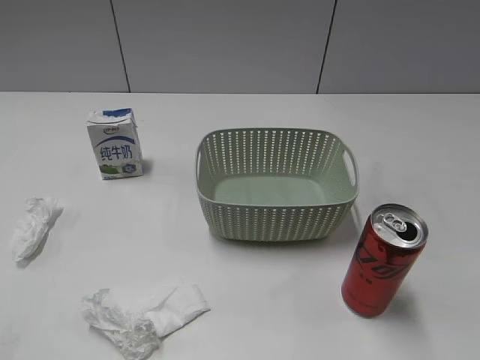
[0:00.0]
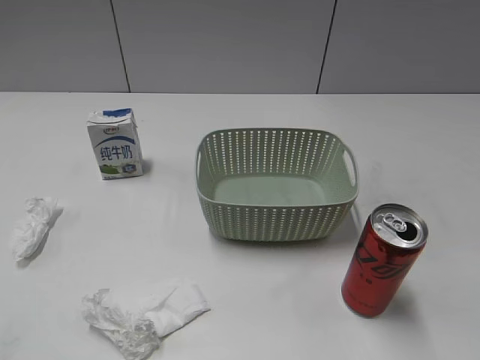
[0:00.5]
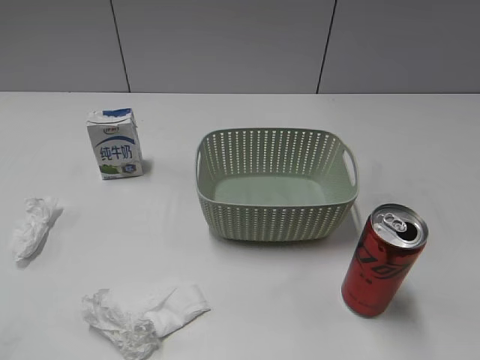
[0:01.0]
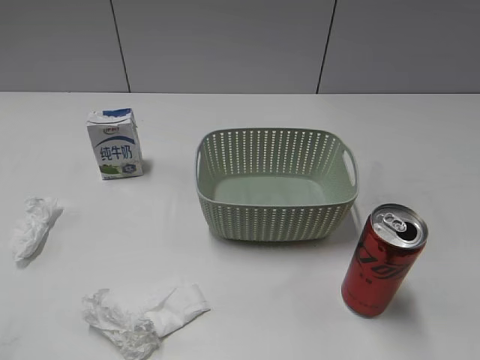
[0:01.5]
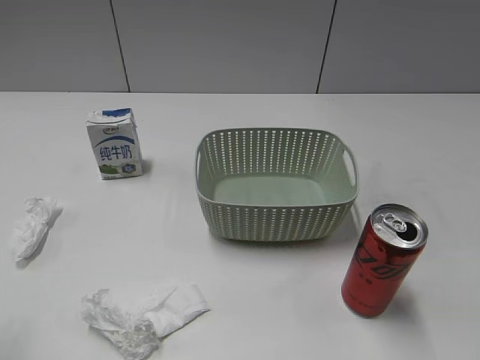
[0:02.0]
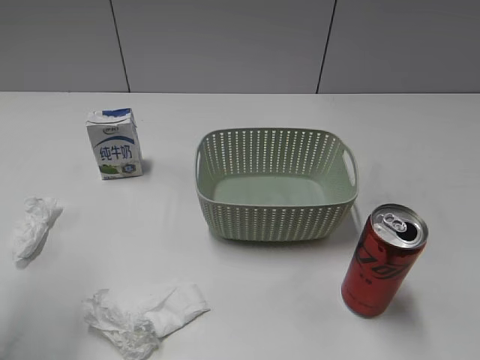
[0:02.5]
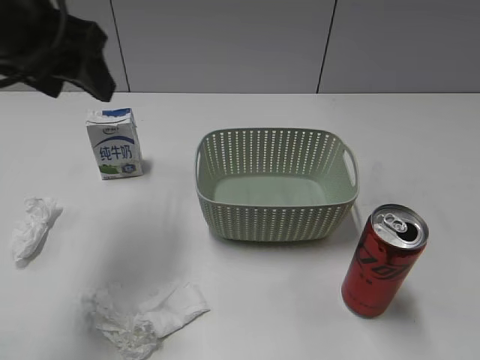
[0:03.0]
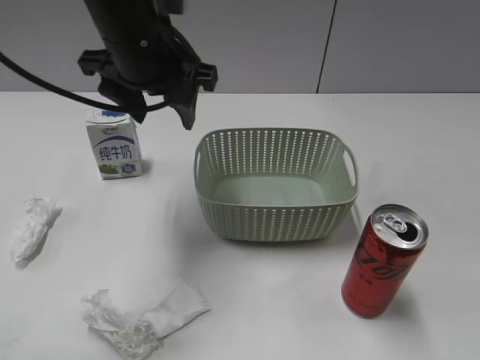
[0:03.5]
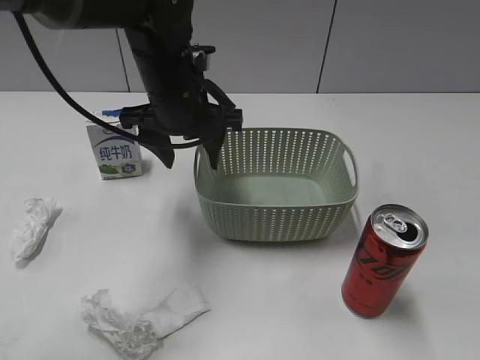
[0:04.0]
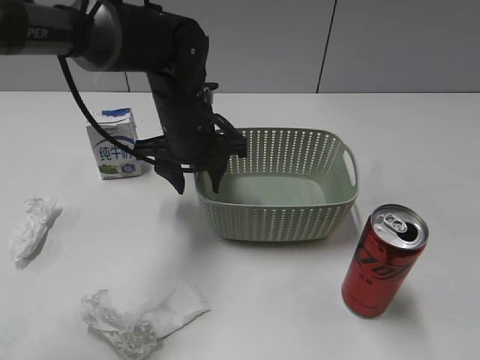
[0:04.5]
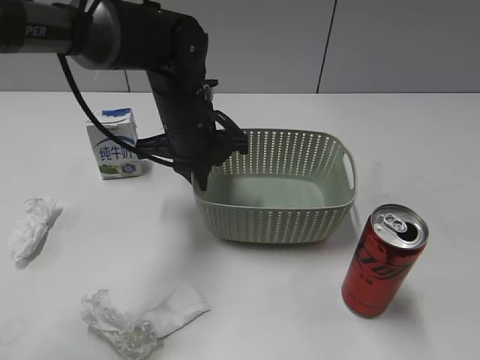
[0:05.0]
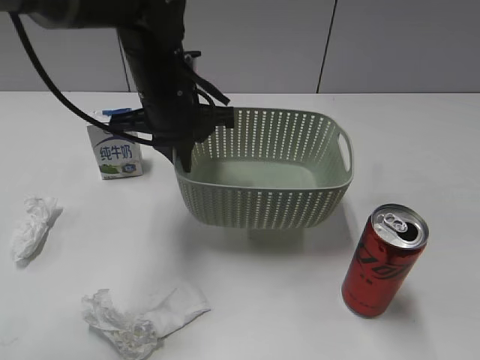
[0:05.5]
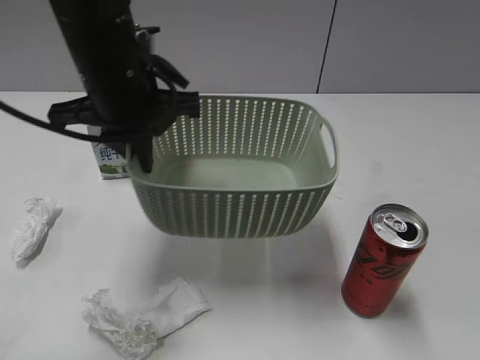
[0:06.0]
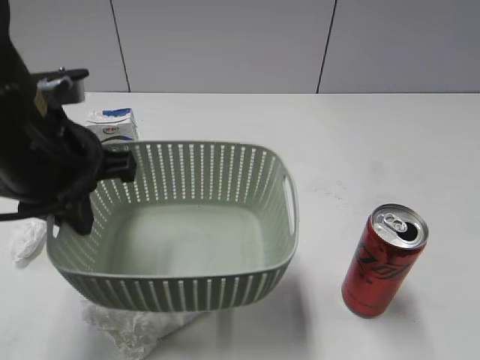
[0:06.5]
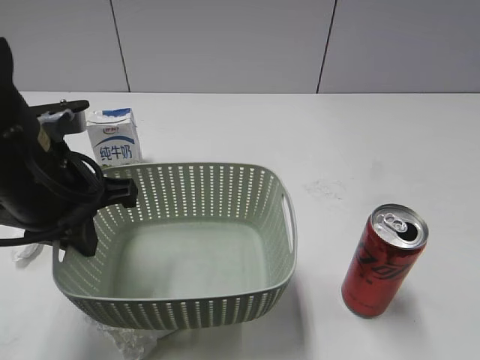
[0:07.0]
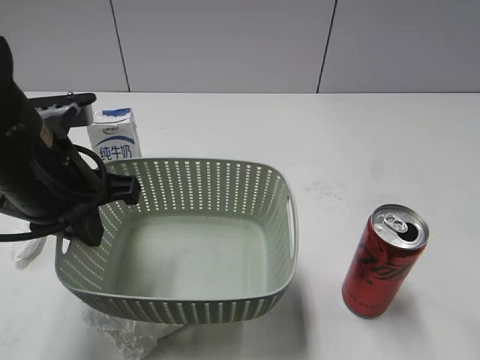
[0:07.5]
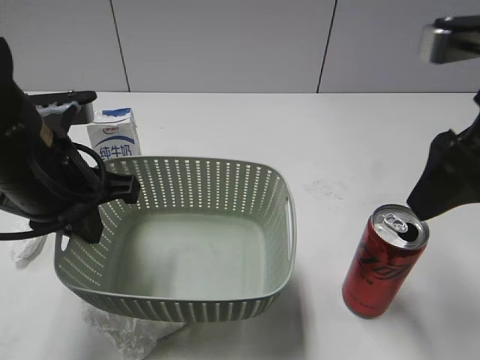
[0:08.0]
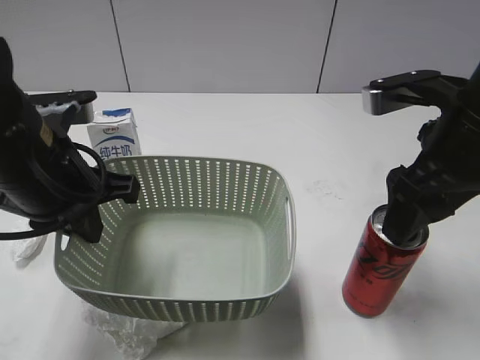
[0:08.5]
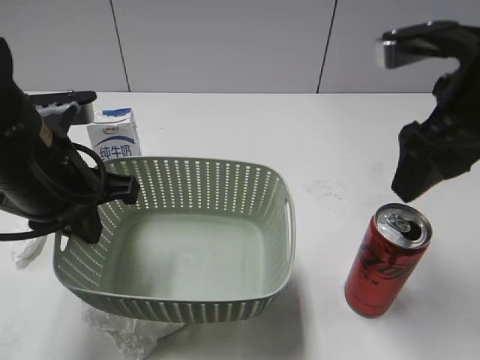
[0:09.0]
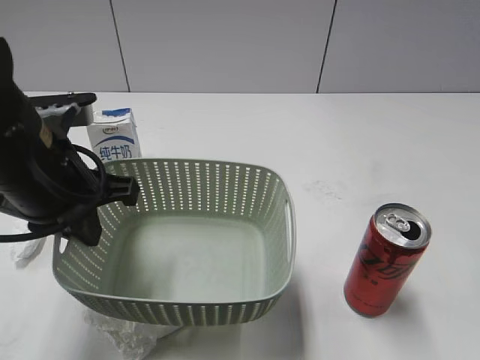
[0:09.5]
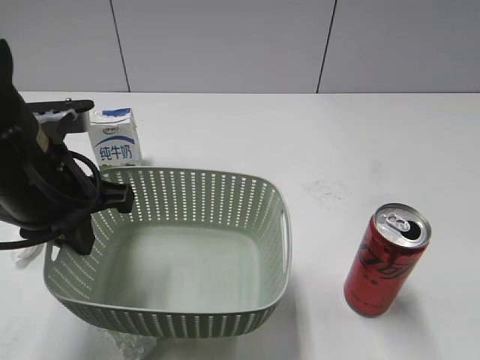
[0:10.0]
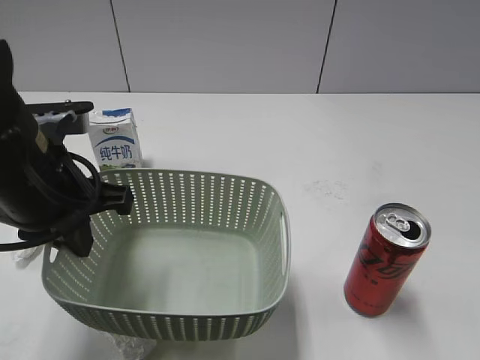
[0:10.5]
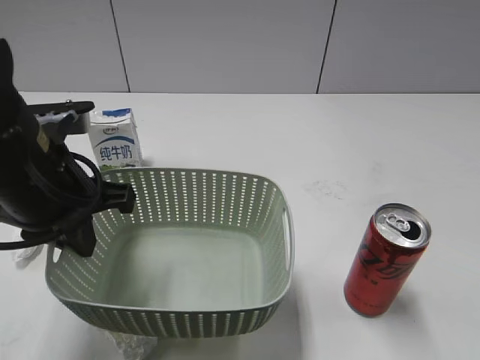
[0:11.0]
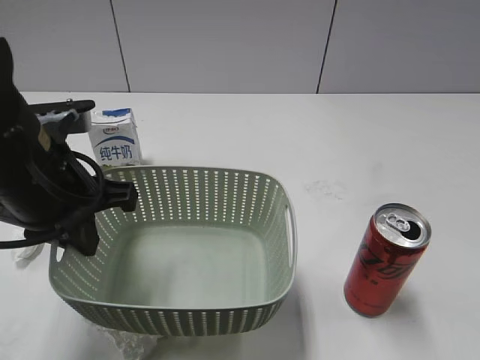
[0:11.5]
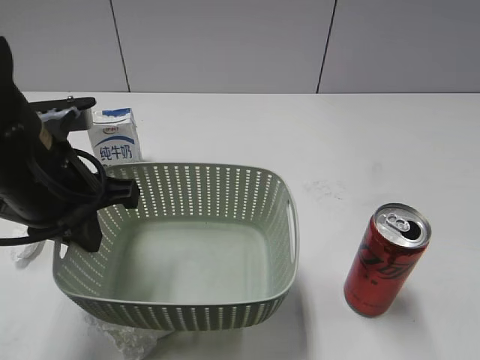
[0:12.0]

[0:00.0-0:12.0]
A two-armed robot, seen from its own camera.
Step, 0:03.0 to 0:04.5: Grasp the basket with left gripper.
Step, 0:05.0 to 0:07.5: Lift the basket with left gripper.
0:02.0 to 0:04.0: The left gripper goes roughly 40 cm forward, to the right and downward.
0:04.0 to 0:06.0: The left gripper moves about 10 cm, and closes its fingers.
0:06.0 to 0:08.0: The left gripper is displaced backward and to the left by approximately 10 cm, while the right gripper shifts about 25 cm forward and to the left.
0:08.0 to 0:10.0: The right gripper heads to the right, backward and upward, covering approximately 15 cm.
0:10.0 to 0:12.0: The right gripper shifts roughly 15 cm backward and downward, and opens.

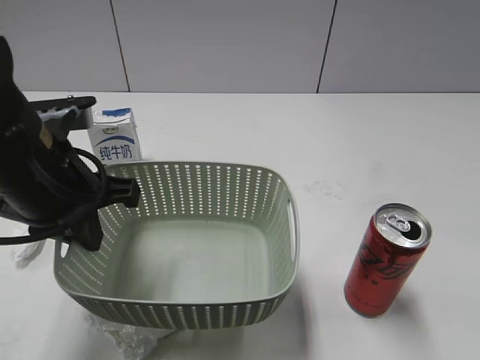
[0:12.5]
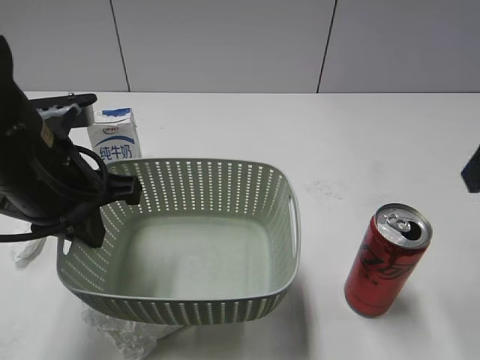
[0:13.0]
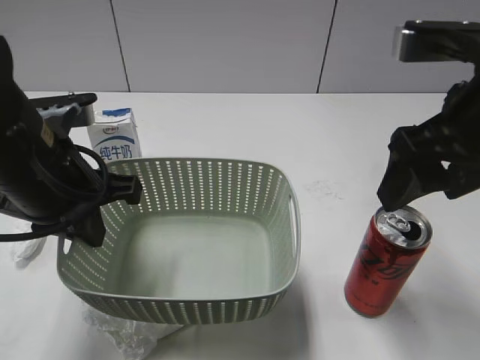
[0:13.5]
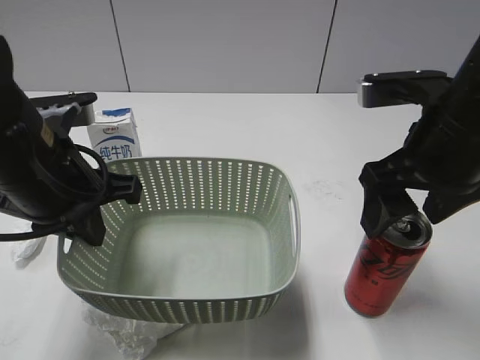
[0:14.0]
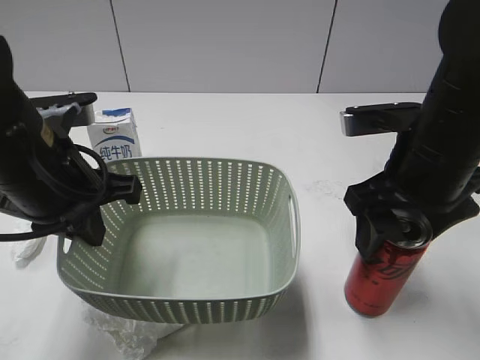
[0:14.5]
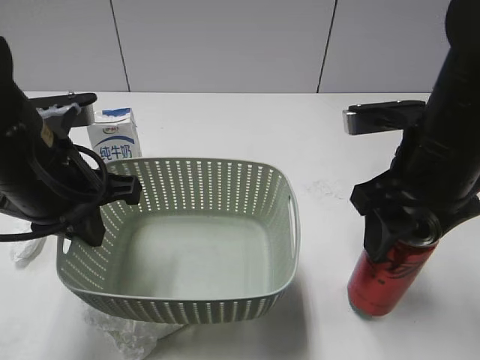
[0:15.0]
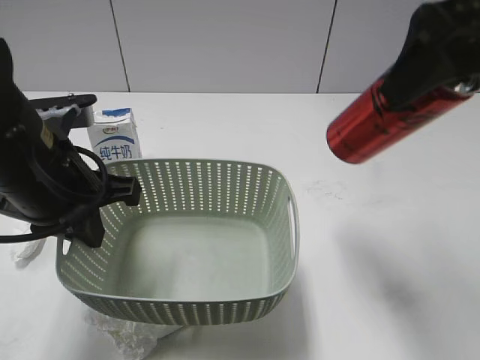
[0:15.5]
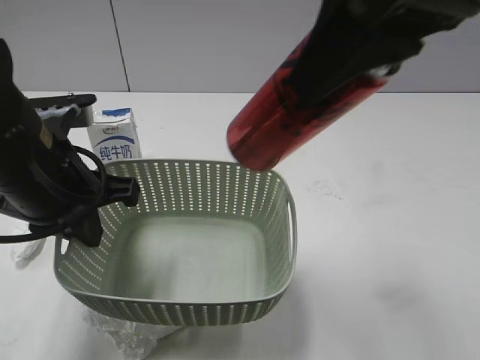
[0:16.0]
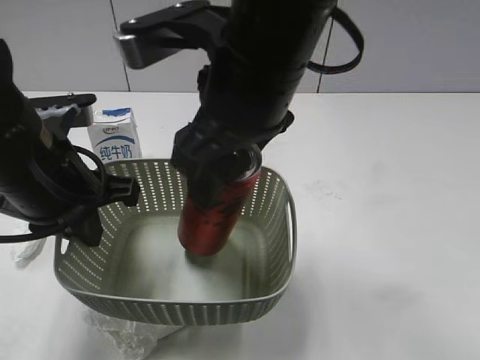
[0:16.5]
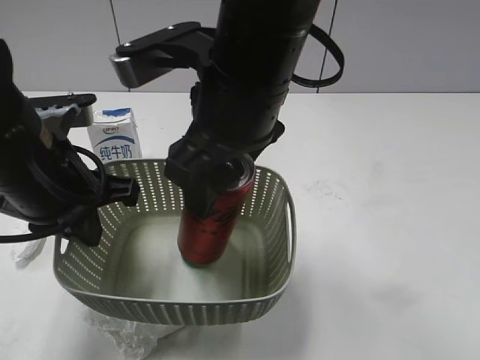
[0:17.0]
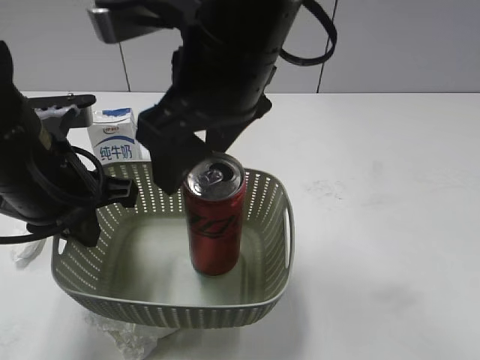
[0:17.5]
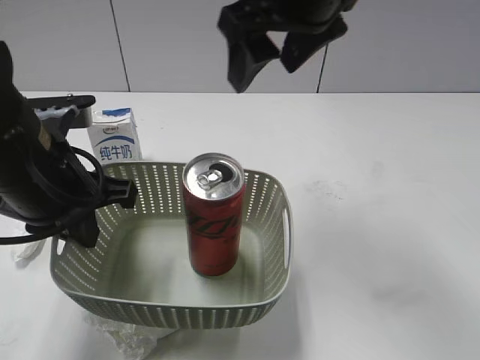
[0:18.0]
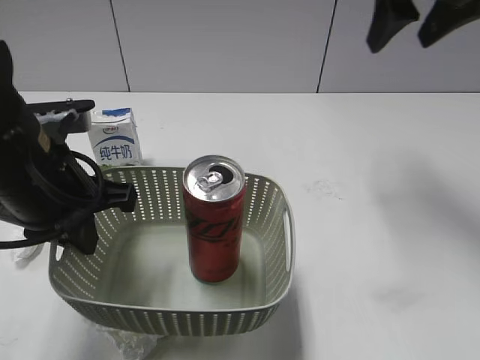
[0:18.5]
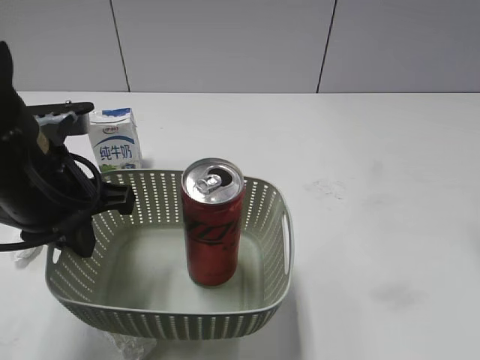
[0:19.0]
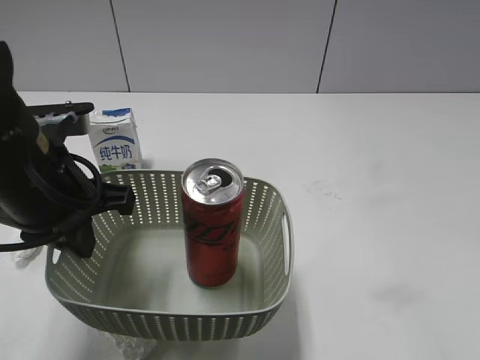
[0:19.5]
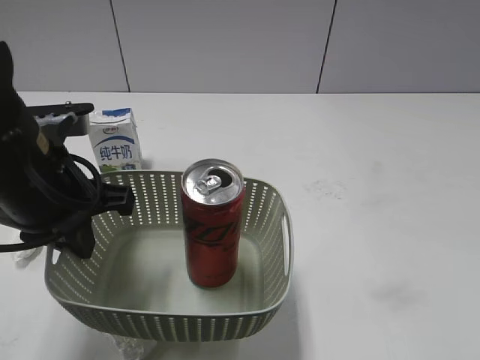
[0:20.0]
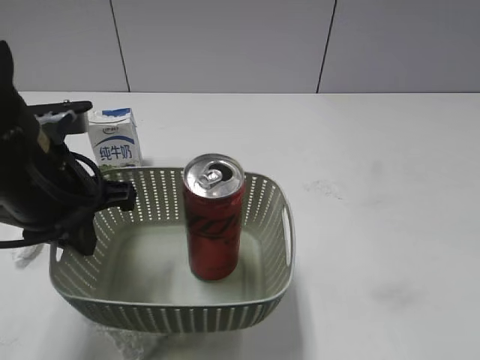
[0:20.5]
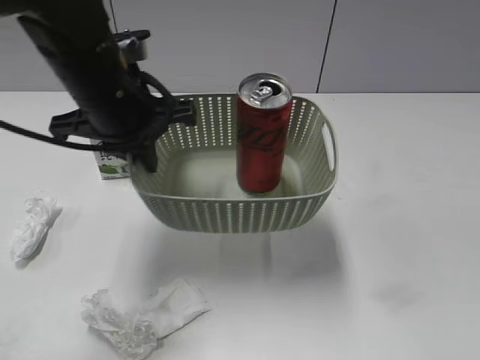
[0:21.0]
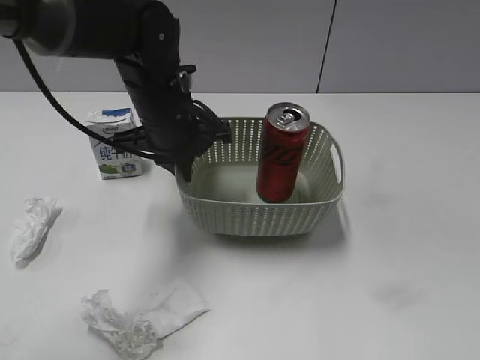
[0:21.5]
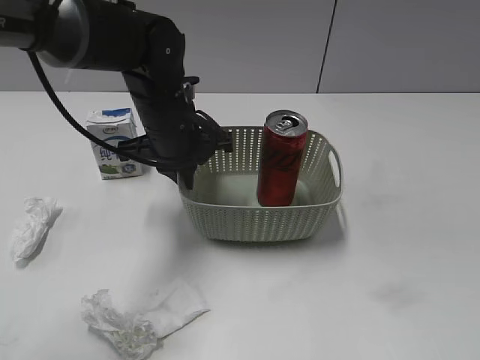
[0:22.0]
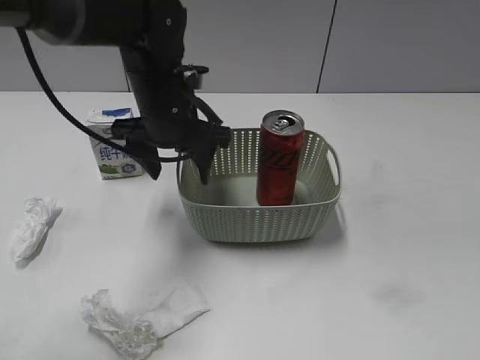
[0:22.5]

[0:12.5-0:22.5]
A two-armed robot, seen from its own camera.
Step, 0:12.5 to 0:14.5: Grasp the cola can with right gripper.
Step, 0:15.0 to 0:17.0: Place the cola can in the basket with right gripper.
Step, 0:17.5 to 0:22.0: Place the basket on the table with left gripper.
0:12.5 to 0:14.5: The right gripper heads downward, forward and to the left, covering roughly 20 cm.
0:14.5 to 0:16.5: The right gripper goes approximately 20 cm to the left and upward, and closes its fingers.
0:16.5 to 0:18.5: The right gripper is displaced to the right and forward by roughly 25 cm, and opens.
0:18.5 to 0:20.5: The right gripper shifts some 35 cm backward.
0:20.5 to 0:22.5: The left gripper travels forward and to the right by about 15 cm, and opens.

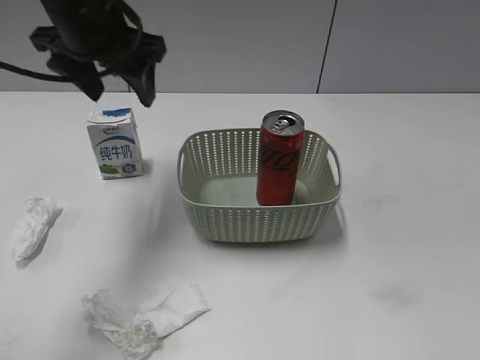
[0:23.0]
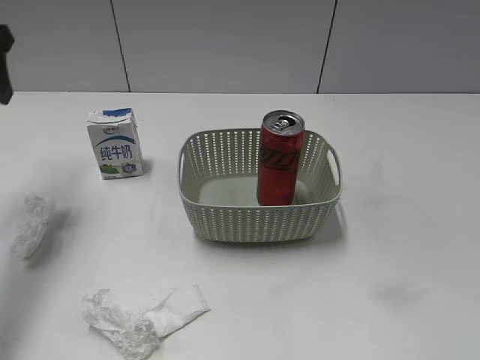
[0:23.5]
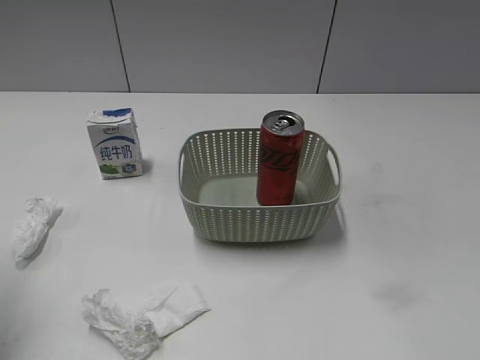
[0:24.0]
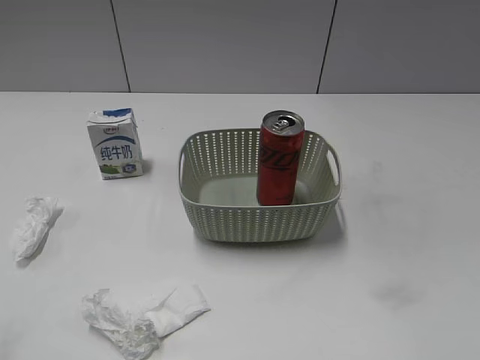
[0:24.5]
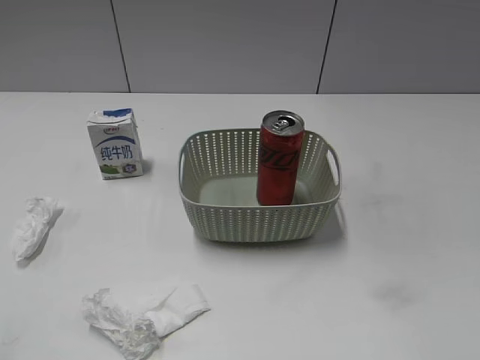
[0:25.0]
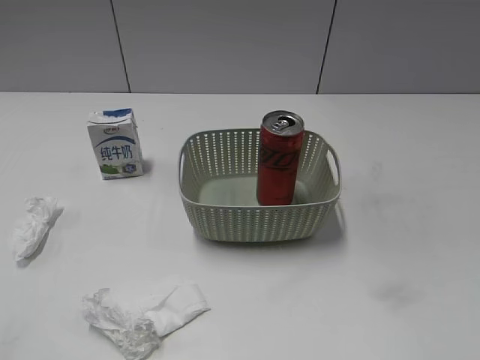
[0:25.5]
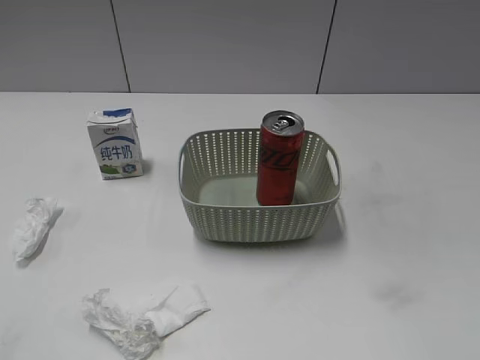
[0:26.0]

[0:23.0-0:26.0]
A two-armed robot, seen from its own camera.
0:23.0 to 0:24.5: The left gripper shifts roughly 30 cm backward and to the left.
